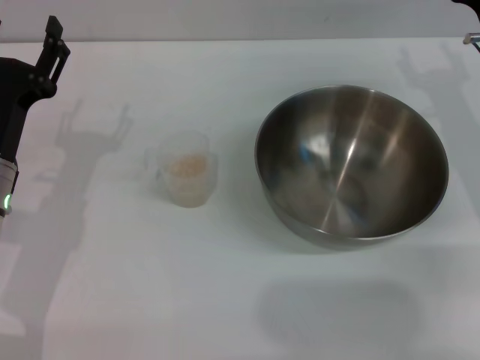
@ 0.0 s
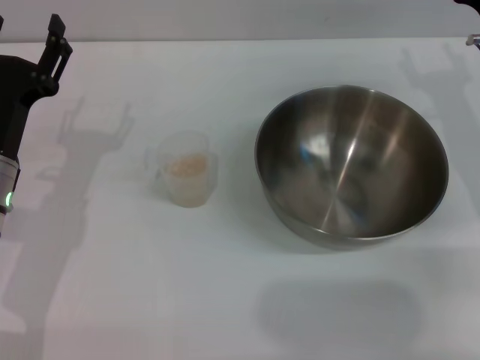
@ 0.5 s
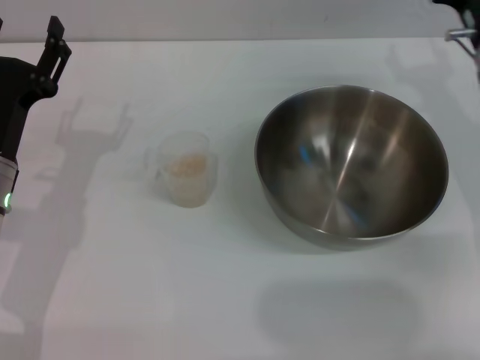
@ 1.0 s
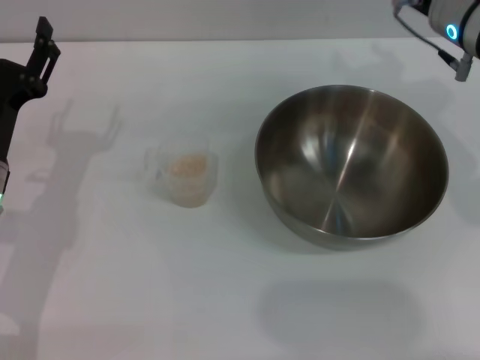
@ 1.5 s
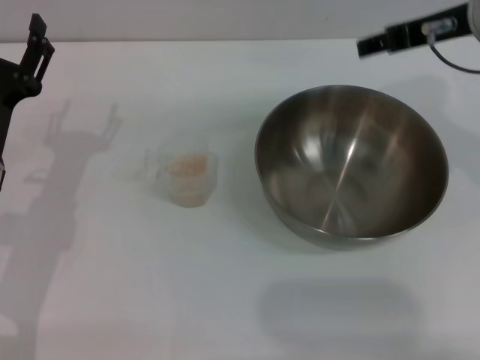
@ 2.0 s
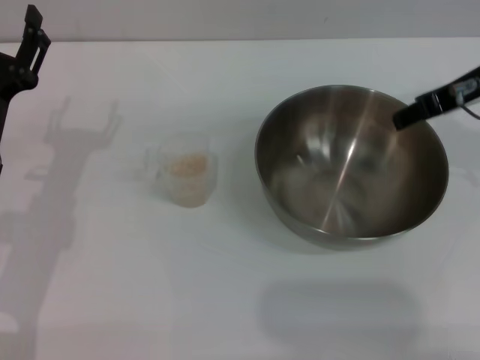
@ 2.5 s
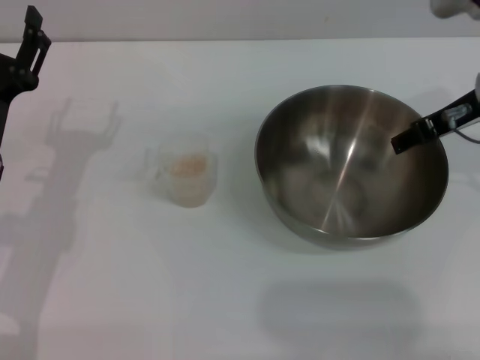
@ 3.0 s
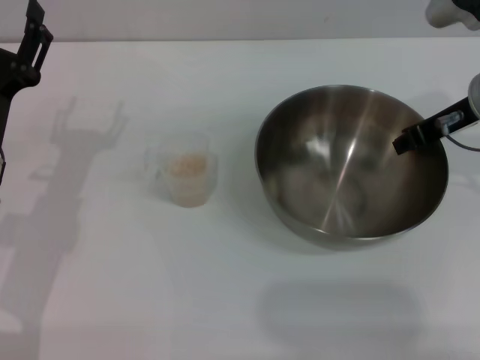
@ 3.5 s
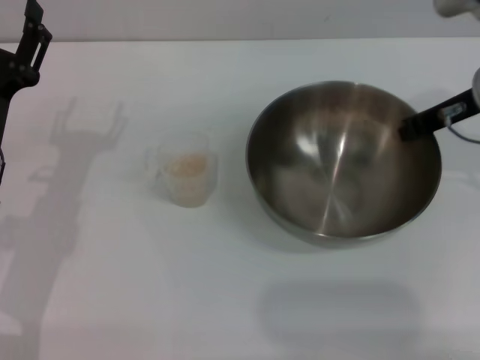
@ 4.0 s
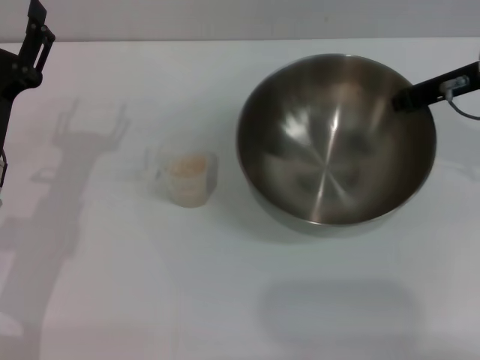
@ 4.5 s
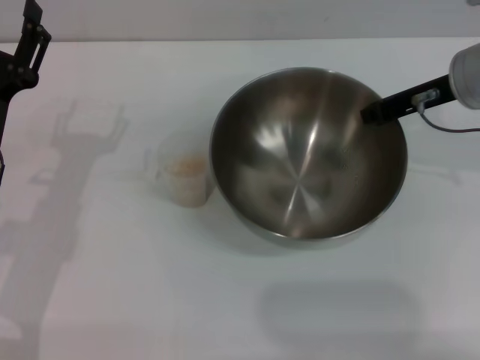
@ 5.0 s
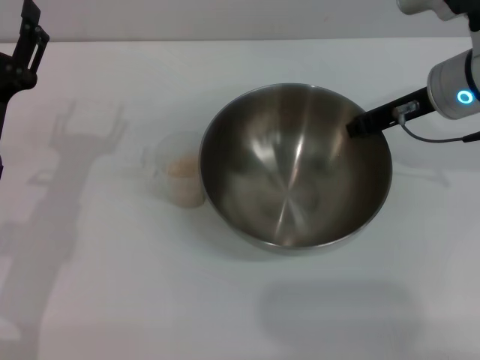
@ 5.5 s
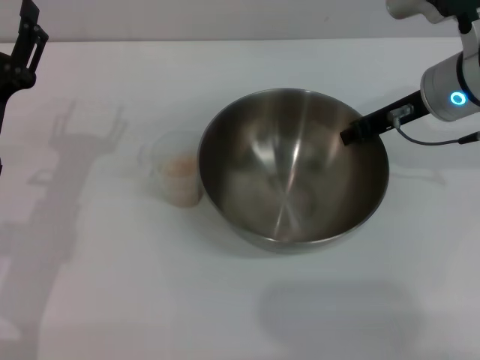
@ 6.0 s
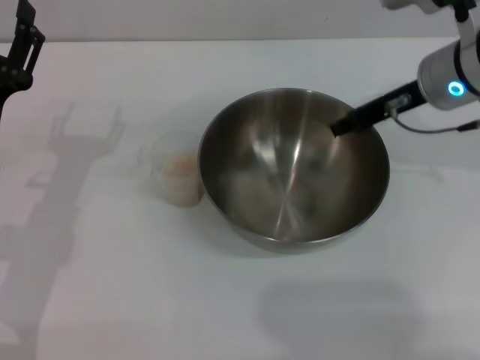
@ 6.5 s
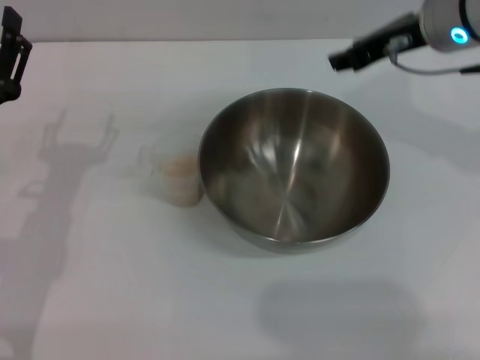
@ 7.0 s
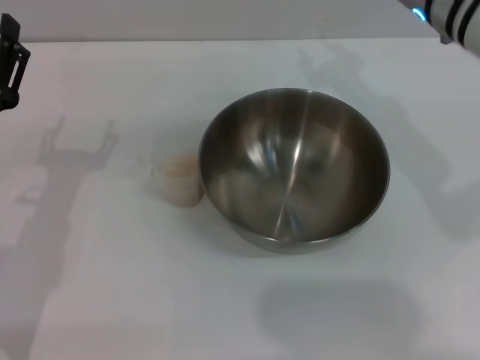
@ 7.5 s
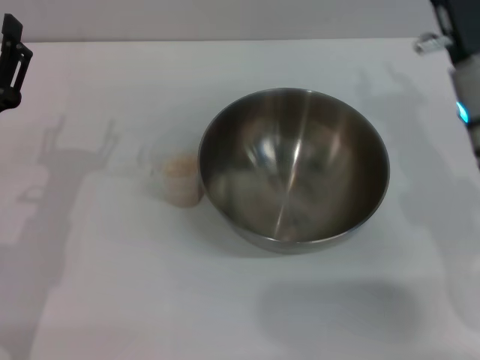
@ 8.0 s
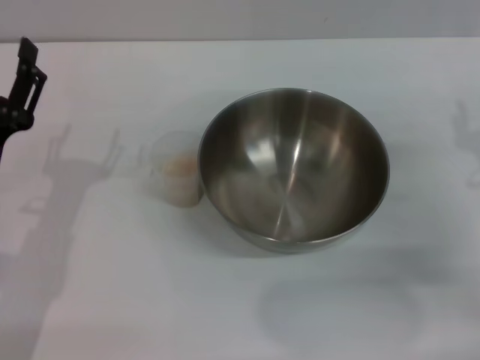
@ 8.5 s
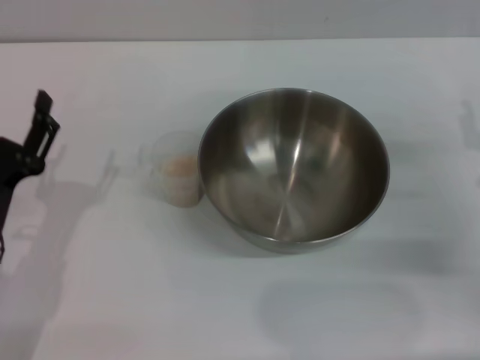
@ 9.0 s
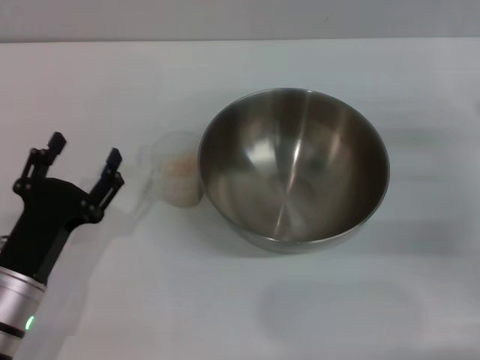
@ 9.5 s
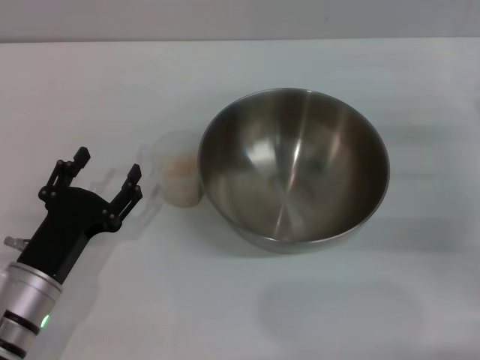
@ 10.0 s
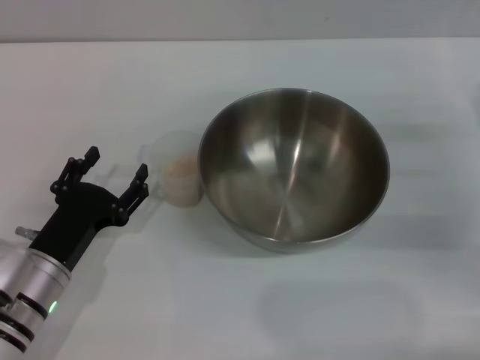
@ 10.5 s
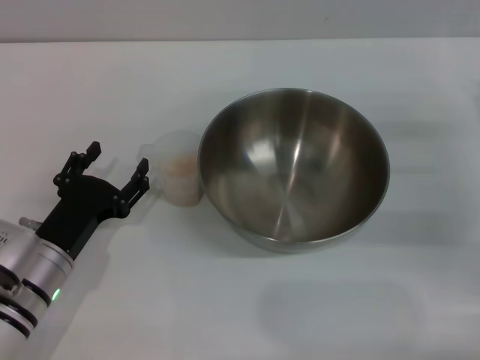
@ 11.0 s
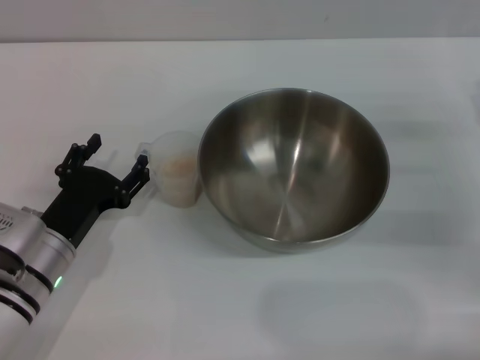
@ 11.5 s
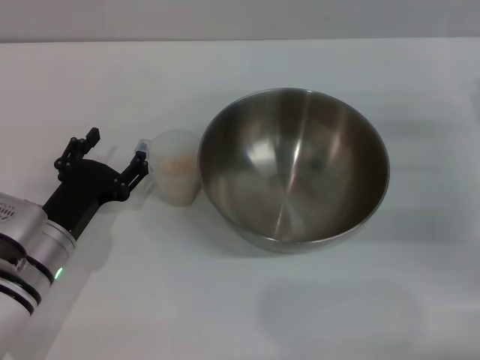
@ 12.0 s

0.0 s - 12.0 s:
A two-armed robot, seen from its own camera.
Task of the whole recording: Place the bowl in the middle of the table with one hand and pour the rice from the grain cup into it with the other hand.
Step, 0.0 s - 4.0 s: Pick up the bowl with the right gripper.
Step, 5.0 s - 6.5 s: Place the bowl in the center of view with the right gripper.
0.0 s - 2.0 s: The right gripper shifts some 15 cm upward and to the left.
2.0 s - 4.0 s: The right gripper travels downward by roughly 5 cm, and closes.
6.0 s - 8.0 s: The right gripper goes about 5 cm backward, reaches roughly 5 cm upward, then returns, and opens.
8.0 s - 10.0 s: The left gripper is displaced downward by roughly 5 cm. The right gripper goes some 15 cm to the right and downward.
10.0 s - 12.0 s: The left gripper goes roughly 5 cm forward.

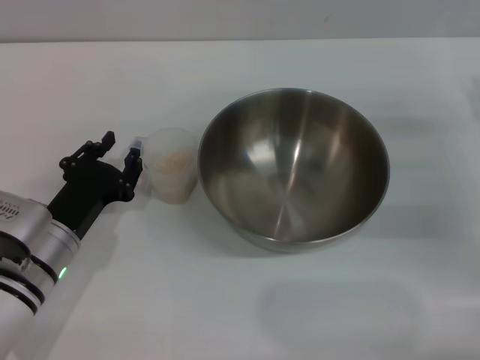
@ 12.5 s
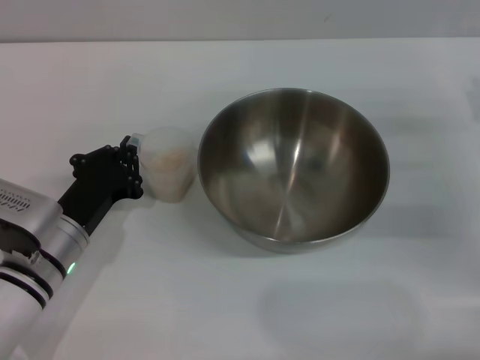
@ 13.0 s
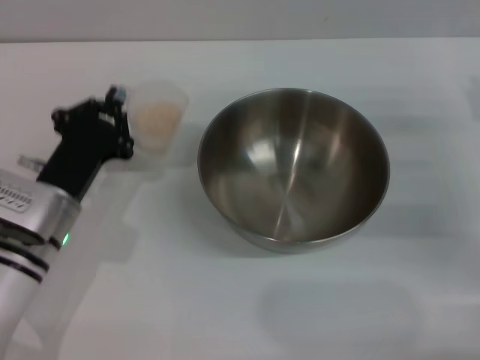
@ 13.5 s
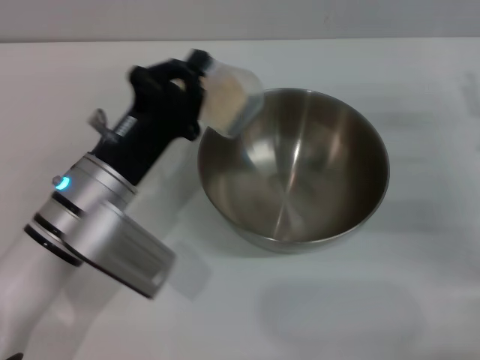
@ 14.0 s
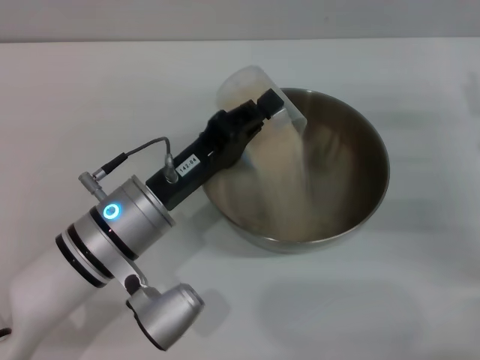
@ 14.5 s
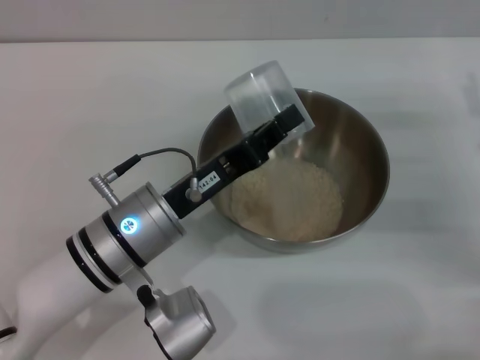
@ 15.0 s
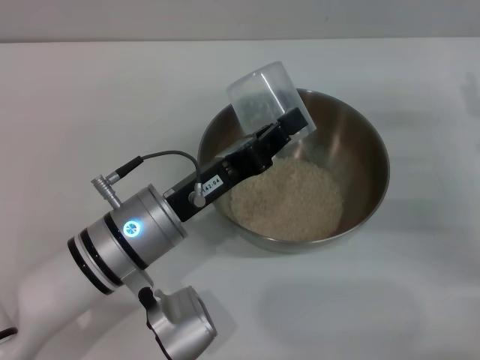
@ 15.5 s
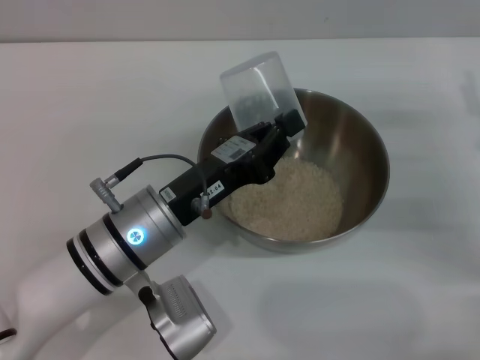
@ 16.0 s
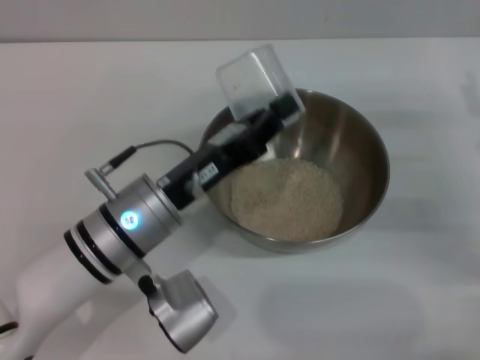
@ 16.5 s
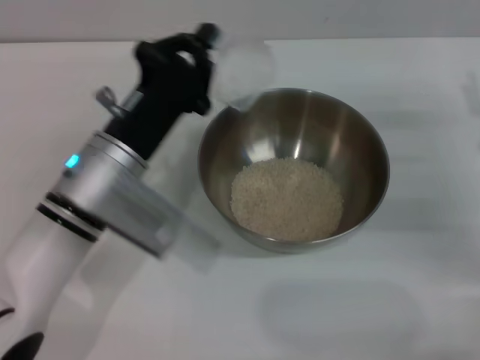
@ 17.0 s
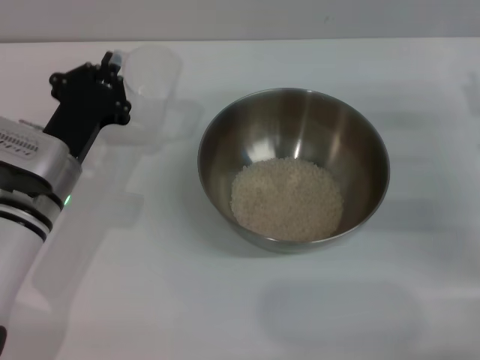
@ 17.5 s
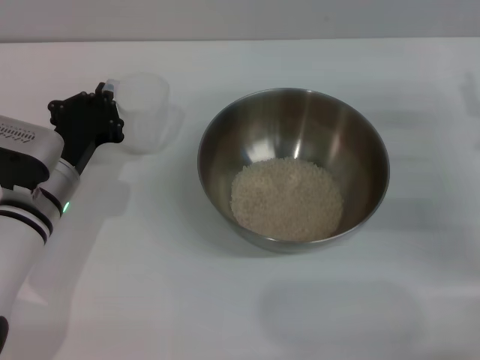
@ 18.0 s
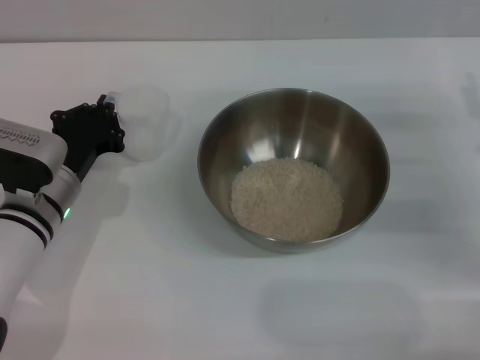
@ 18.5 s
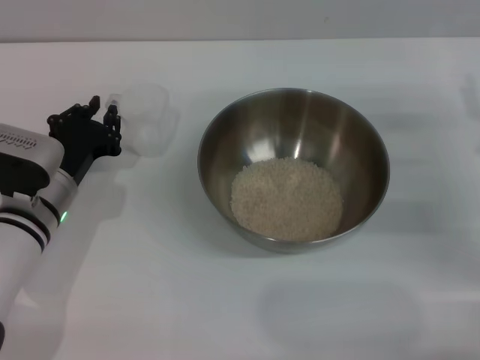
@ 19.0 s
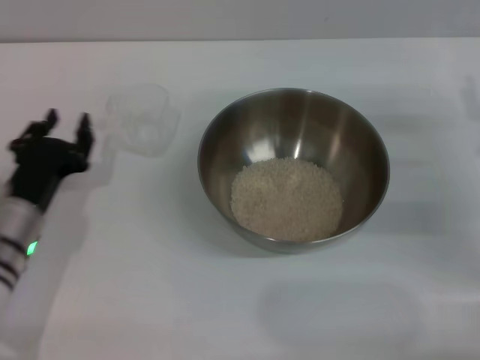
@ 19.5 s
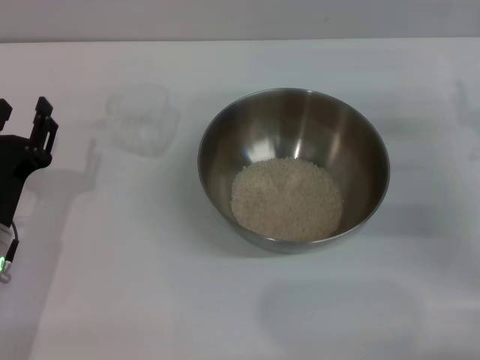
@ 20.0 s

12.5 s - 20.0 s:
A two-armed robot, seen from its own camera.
Task of the whole recording: Place the bowl in the middle of the table with one hand and pour the rice from the grain cup into it with the other hand.
Step, 14.0 s - 16.5 s: Pour the rice from the cup into the bowl with the left gripper.
Step, 17.0 s - 19.0 s: Place the cup on the table with the left gripper.
12.5 s - 14.5 s: The left gripper shifts approximately 10 cm to the right and upward, and closes up.
16.5 s - 18.0 s: The left gripper travels to the left and forward by approximately 10 cm.
18.0 s - 20.0 s: The left gripper goes approximately 5 cm backward, and opens its fingers.
